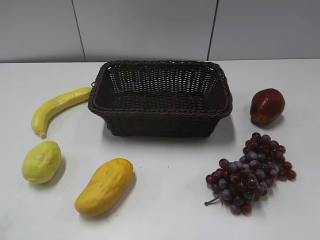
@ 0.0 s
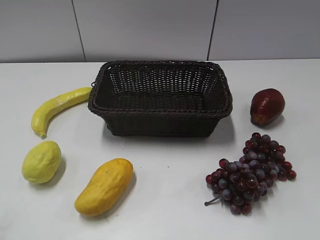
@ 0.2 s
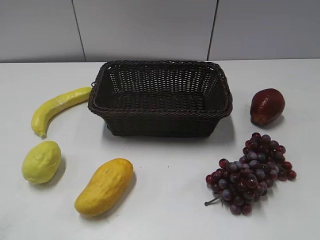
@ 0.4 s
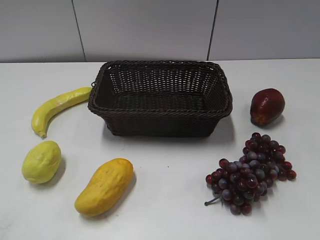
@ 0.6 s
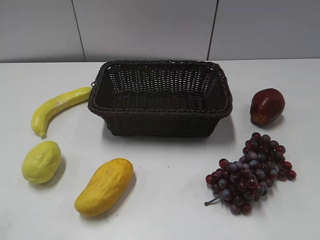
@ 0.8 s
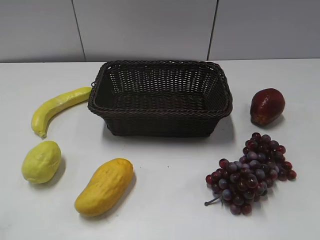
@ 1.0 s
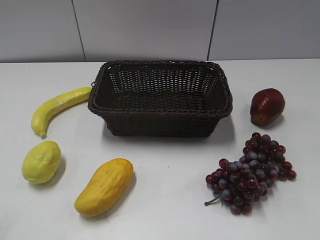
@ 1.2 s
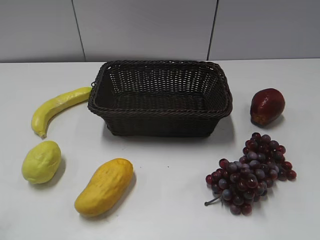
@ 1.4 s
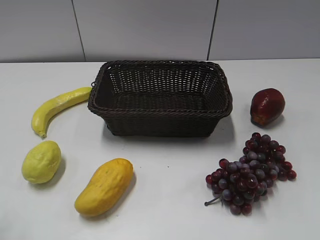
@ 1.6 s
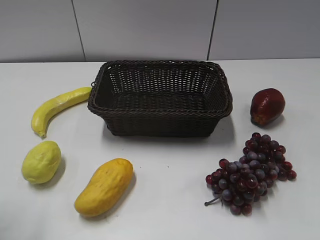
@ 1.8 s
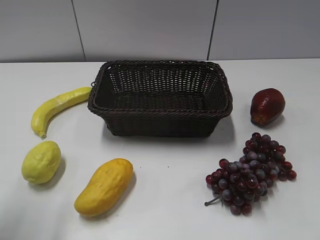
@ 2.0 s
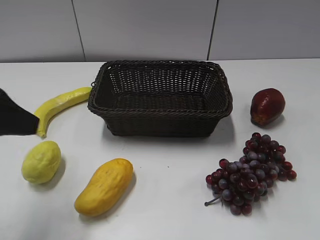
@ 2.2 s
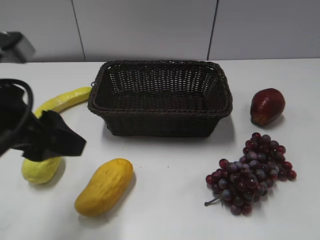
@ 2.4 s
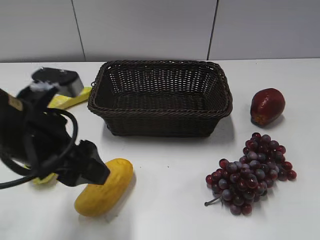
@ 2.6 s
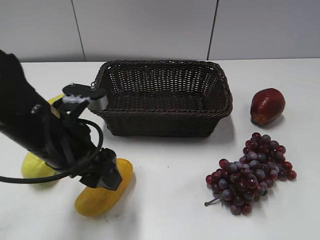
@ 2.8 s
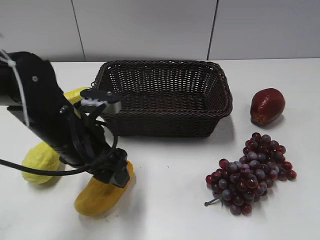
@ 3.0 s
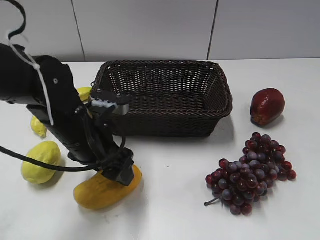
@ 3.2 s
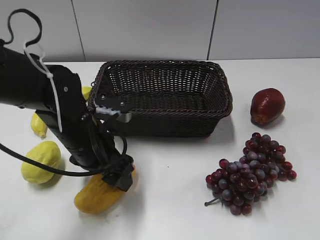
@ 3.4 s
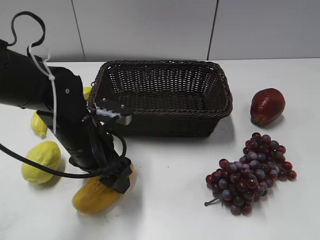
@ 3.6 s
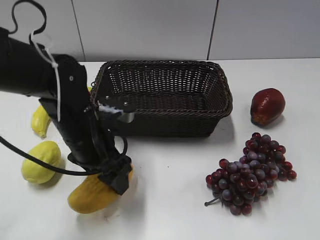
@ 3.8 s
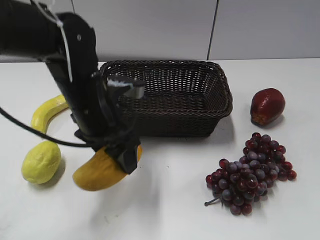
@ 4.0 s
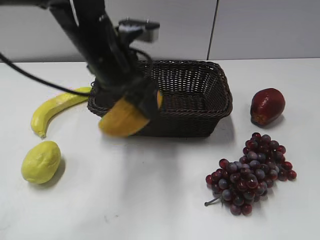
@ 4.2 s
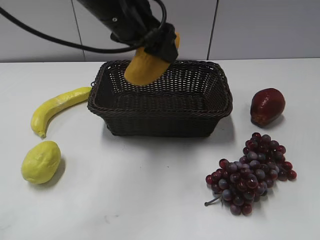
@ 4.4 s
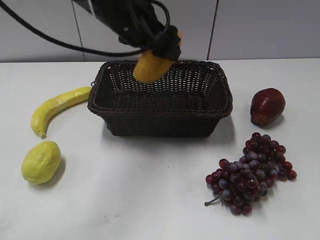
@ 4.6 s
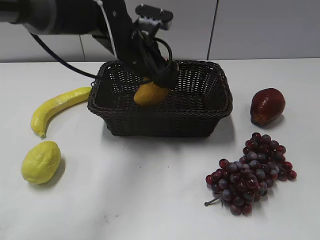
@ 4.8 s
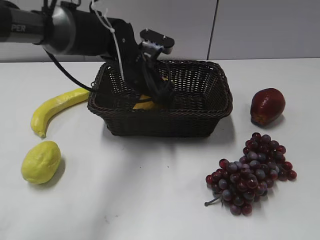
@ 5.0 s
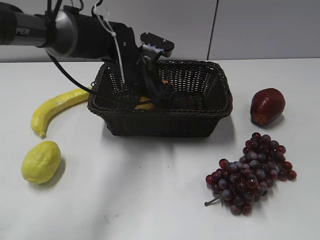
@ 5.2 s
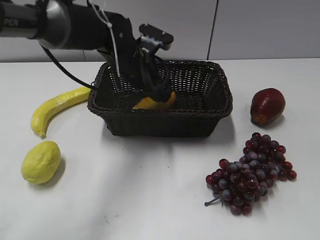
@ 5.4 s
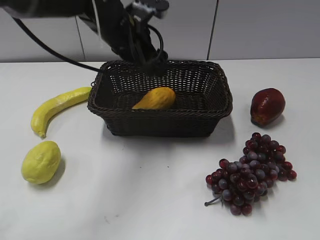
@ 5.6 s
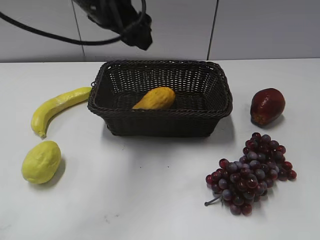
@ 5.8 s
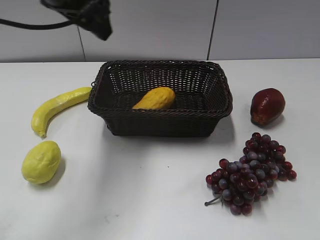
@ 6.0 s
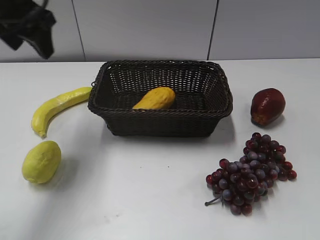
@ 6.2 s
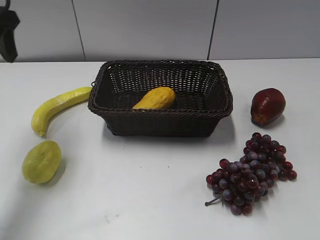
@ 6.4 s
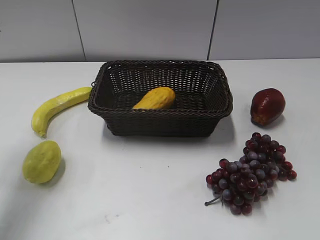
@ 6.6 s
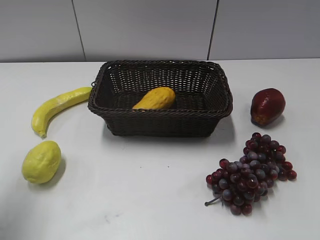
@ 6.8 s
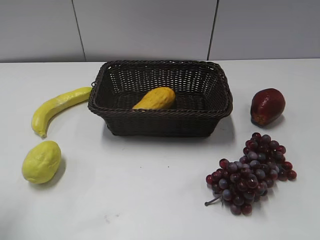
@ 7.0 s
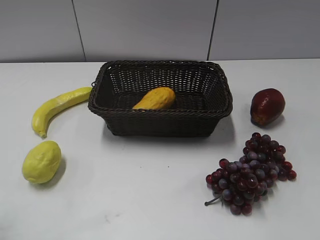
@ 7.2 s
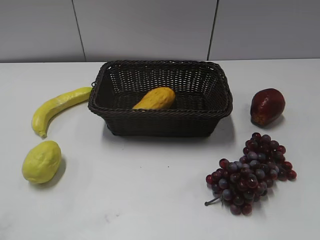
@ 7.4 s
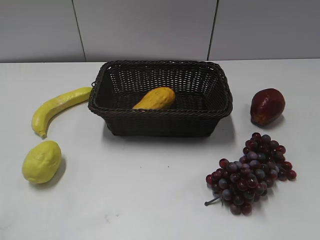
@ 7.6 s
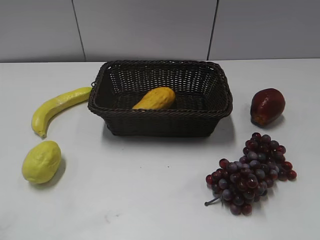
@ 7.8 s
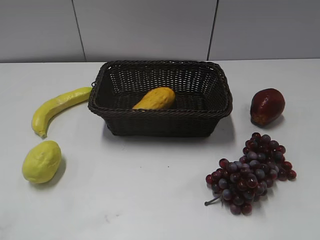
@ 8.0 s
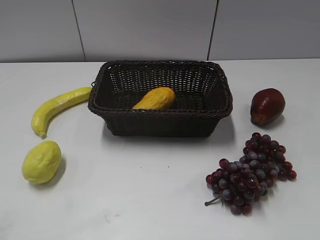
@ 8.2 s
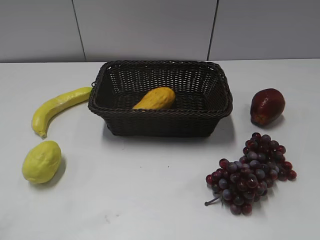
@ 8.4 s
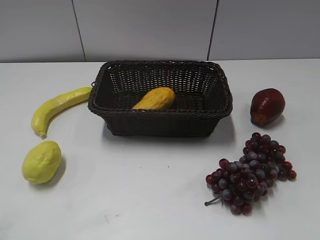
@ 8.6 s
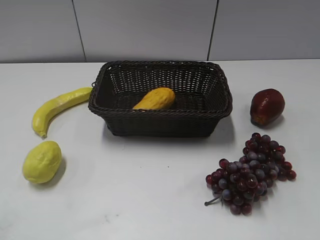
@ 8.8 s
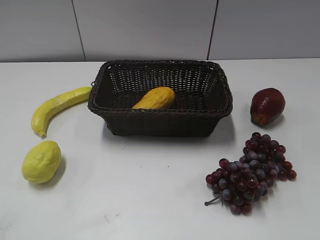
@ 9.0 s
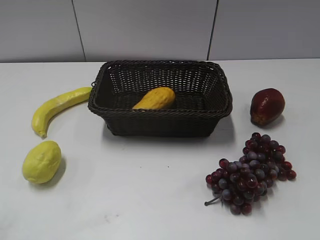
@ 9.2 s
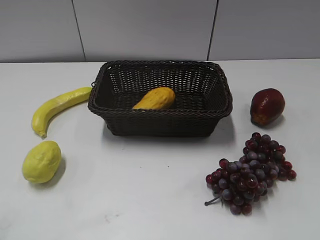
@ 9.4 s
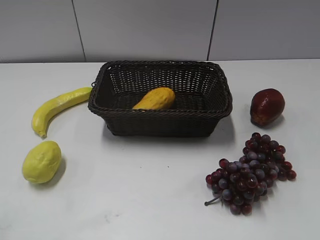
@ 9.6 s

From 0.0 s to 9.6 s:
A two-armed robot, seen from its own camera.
Step, from 2.2 s to 3.4 s: Grasp the mango with left gripper.
Step, from 3.8 s to 5.2 s: Place the mango in the basket with left gripper.
From 1.6 s to 3.2 s: The left gripper moves to the right, forward and downward, roughly 30 cm.
From 3.2 s to 4.8 s: The left gripper heads forward and to the right, covering about 15 cm, and reaches roughly 15 cm upward, then returns.
From 4.8 s to 6.4 s: The left gripper is displaced to the left and upward by roughly 25 cm.
From 6.4 s to 8.0 s: The left gripper shifts some 35 cm backward.
